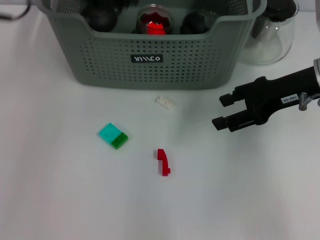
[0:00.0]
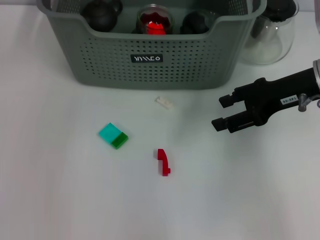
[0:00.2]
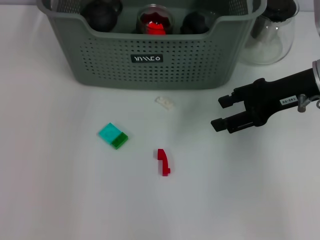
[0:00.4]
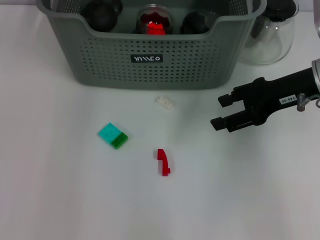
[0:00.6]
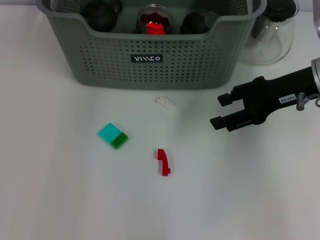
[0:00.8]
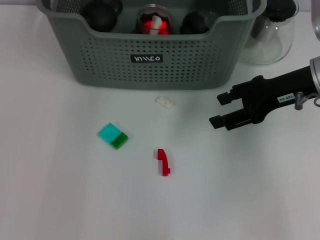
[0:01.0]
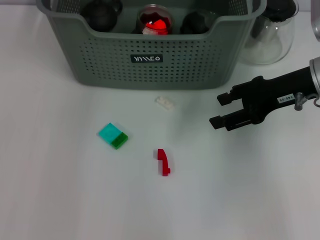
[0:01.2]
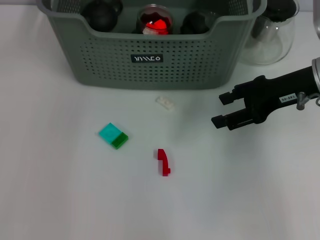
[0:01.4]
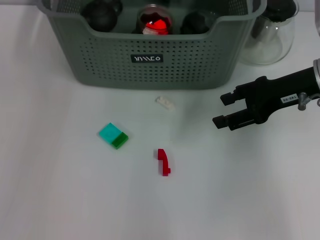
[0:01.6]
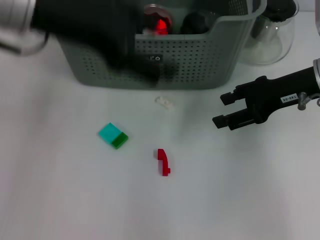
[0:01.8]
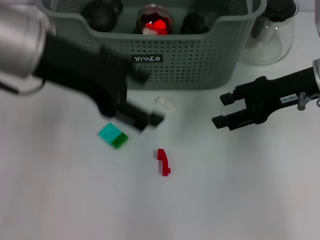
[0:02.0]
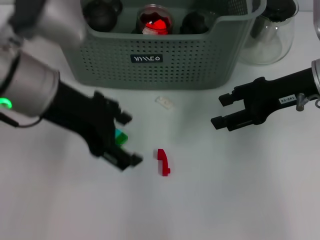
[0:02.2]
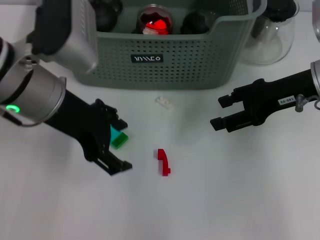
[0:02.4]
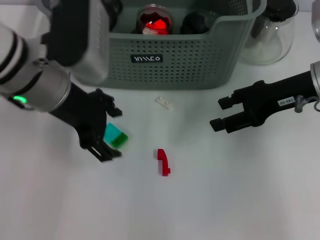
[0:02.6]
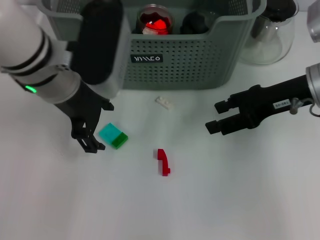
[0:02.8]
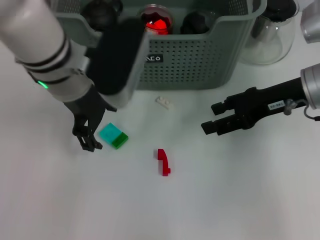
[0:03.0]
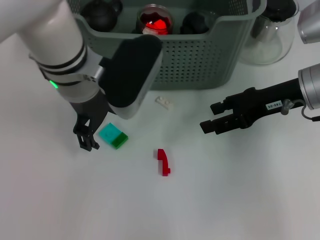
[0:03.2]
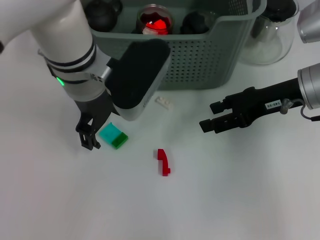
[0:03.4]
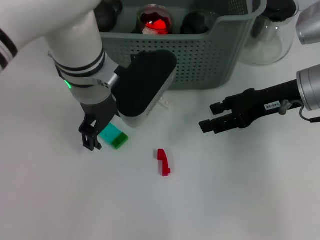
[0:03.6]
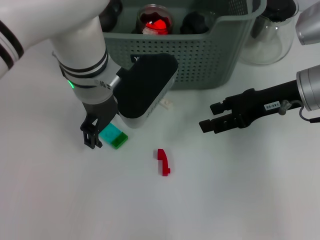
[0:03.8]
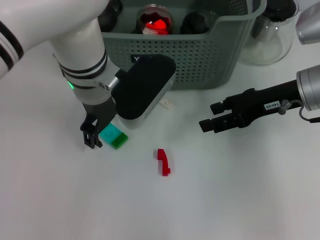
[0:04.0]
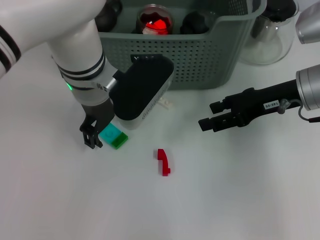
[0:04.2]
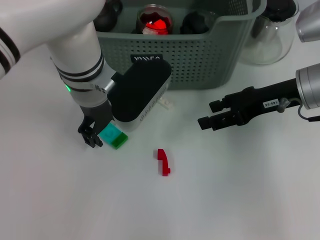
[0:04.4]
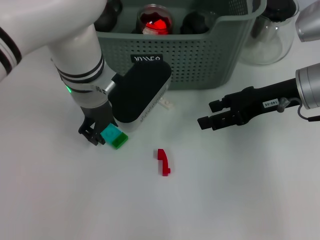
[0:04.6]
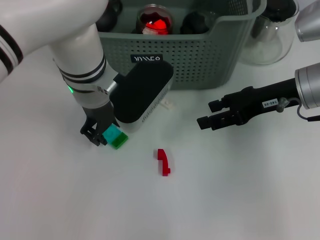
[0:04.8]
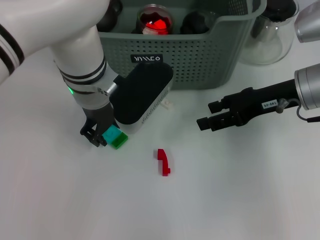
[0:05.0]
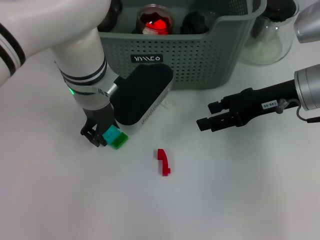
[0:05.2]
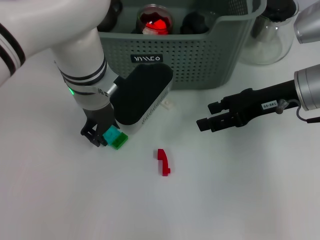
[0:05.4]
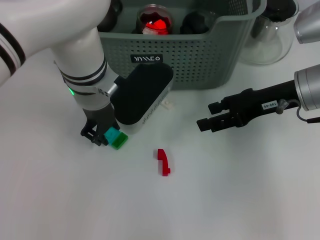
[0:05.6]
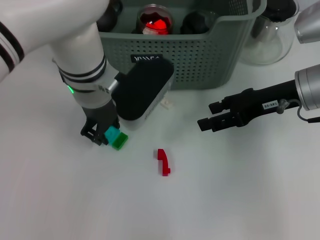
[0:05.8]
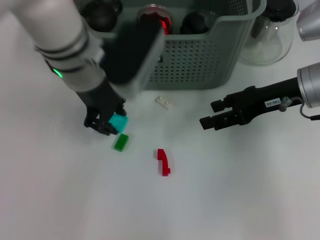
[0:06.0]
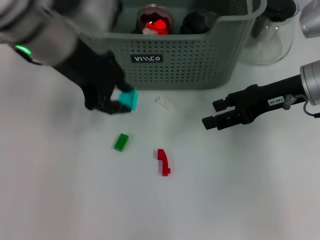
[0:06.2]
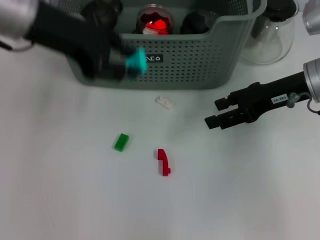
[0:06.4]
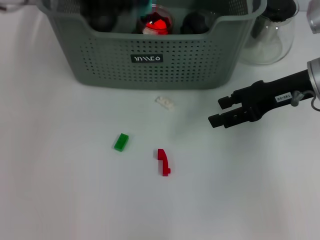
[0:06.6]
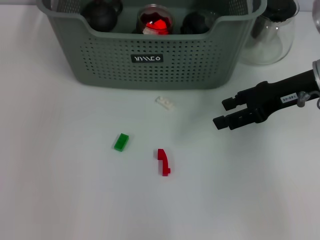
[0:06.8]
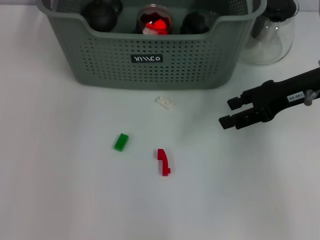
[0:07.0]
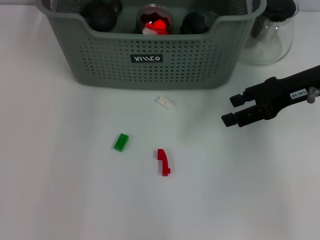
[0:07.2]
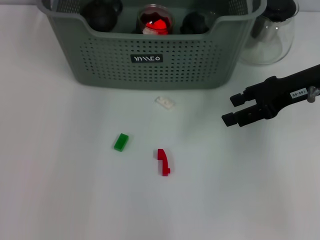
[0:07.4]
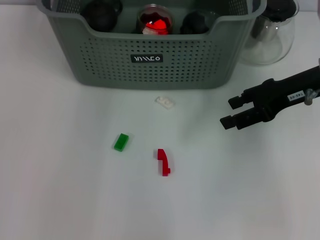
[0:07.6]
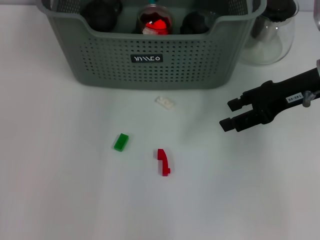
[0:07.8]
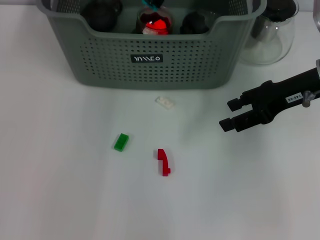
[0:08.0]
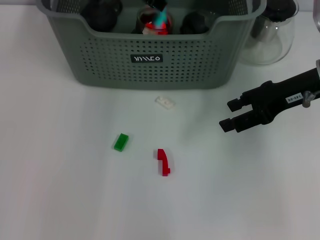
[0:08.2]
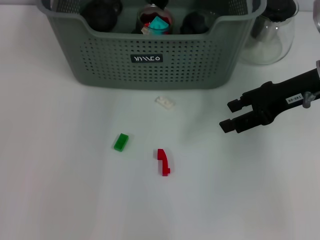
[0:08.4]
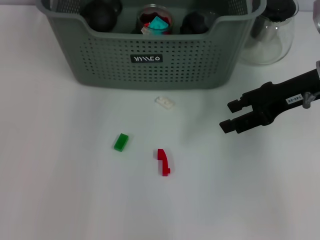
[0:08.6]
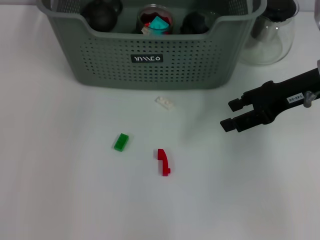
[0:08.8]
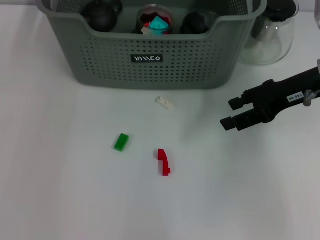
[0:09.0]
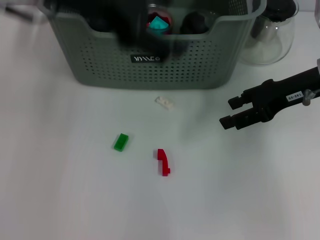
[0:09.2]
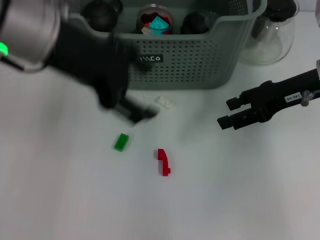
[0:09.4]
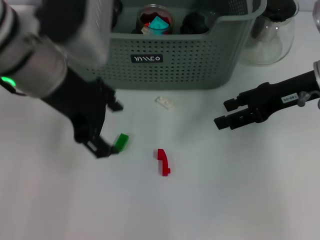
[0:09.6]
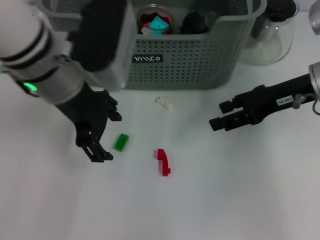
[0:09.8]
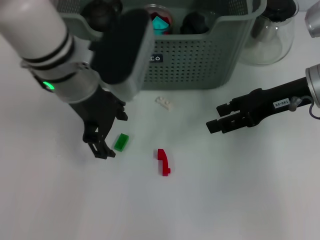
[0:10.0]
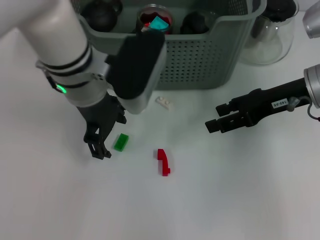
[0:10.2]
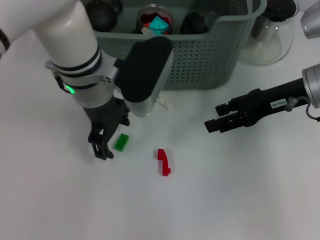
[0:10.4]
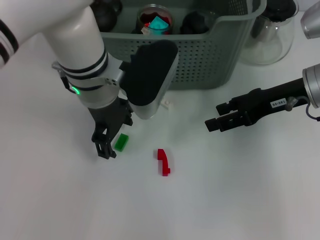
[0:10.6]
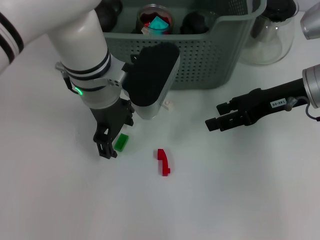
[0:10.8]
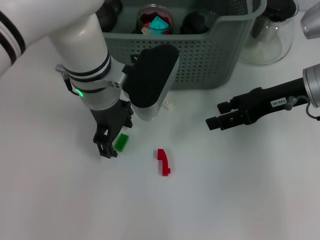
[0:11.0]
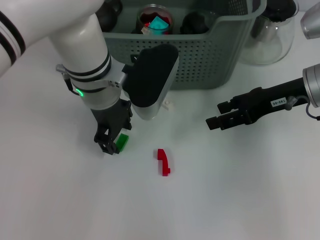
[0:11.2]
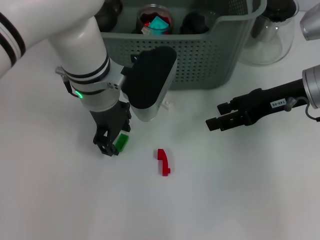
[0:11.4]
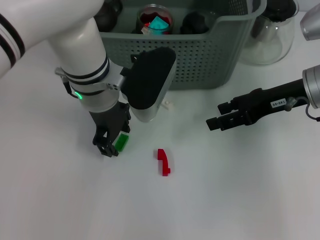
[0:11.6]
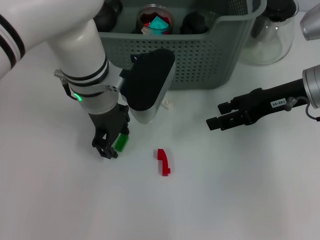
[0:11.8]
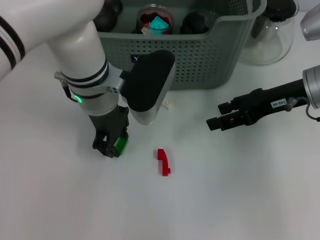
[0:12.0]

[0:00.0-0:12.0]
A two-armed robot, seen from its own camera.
Task of the whole recording: pick up the teacup on the table and place it into the storage bin, pick up the block on the table and place it into the storage bin.
Step, 1.0 to 5.4 s: Grasp the light blue block with left gripper.
Step, 5.6 to 8.2 s: Place the light blue block in the storage box with left gripper.
Step, 8.4 to 12.0 s: Grasp the green block with left gripper.
0.0 to 1.6 s: The left gripper goes forward and returns, approximately 10 cm each way, and opens its fingers.
1.6 to 3.0 s: The left gripper goes some 10 cm downward.
3.0 to 4.4 s: The left gripper changes place by roughly 5 cm.
4.4 to 6.0 s: The left gripper is displaced upward by approximately 5 cm, and closes its fingers.
6.0 to 7.6 s: The left gripper travels forward by roughly 10 cm.
9.0 to 10.4 s: The left gripper shifts approximately 15 cm downward.
10.4 to 12.0 s: There are only small adjustments of the grippers.

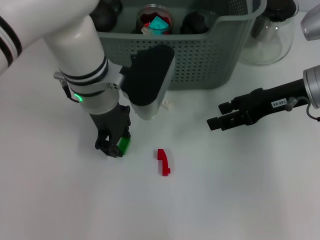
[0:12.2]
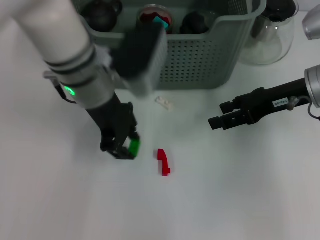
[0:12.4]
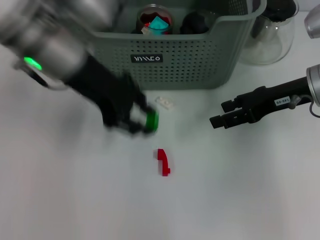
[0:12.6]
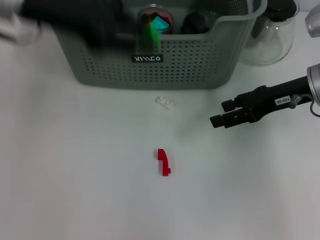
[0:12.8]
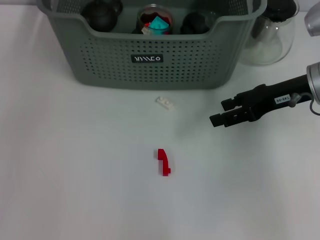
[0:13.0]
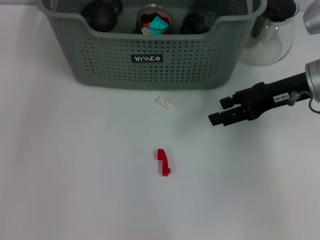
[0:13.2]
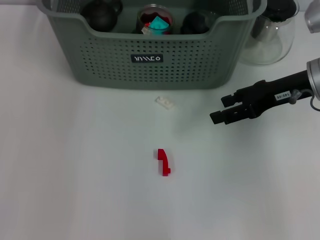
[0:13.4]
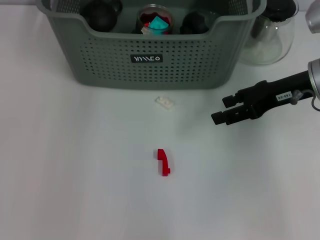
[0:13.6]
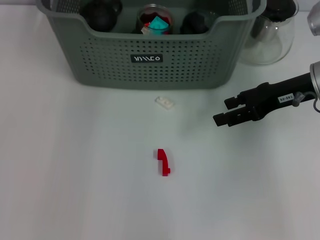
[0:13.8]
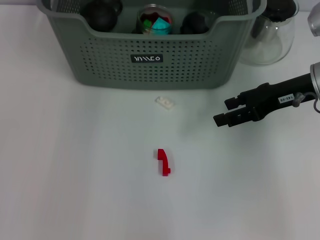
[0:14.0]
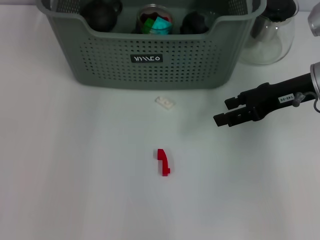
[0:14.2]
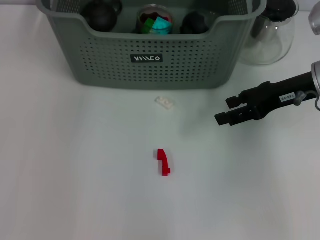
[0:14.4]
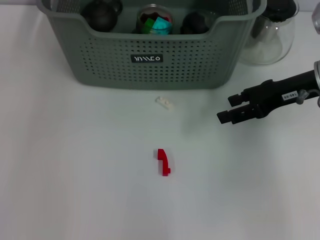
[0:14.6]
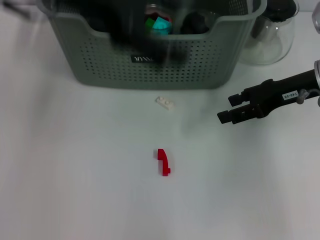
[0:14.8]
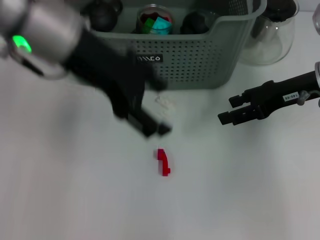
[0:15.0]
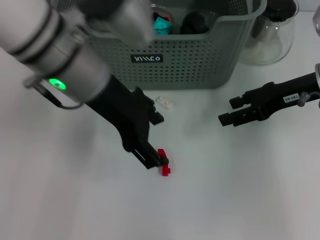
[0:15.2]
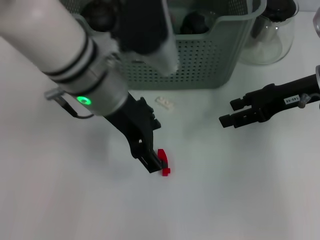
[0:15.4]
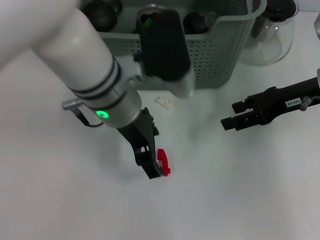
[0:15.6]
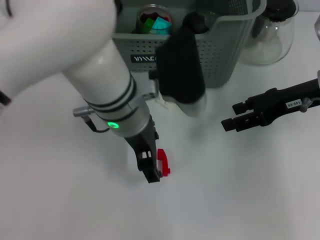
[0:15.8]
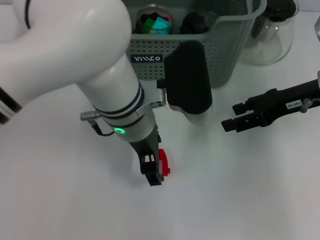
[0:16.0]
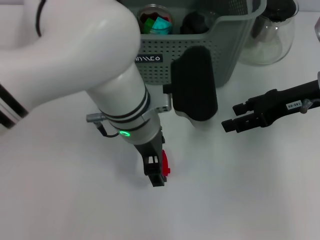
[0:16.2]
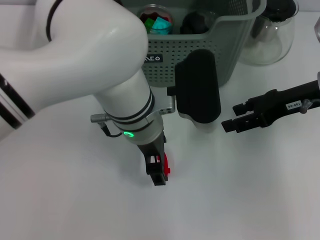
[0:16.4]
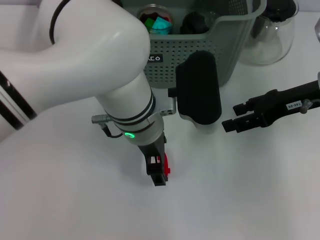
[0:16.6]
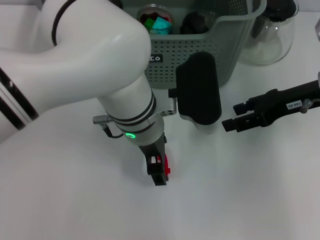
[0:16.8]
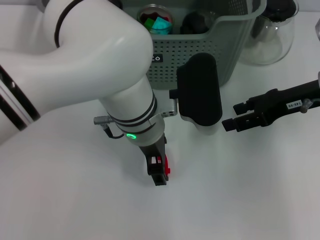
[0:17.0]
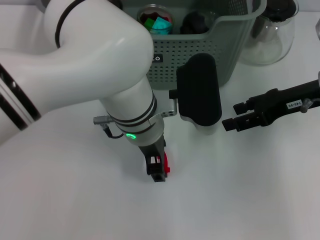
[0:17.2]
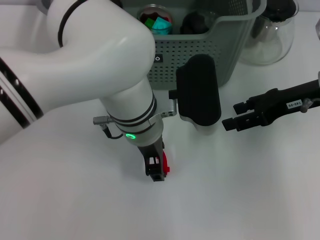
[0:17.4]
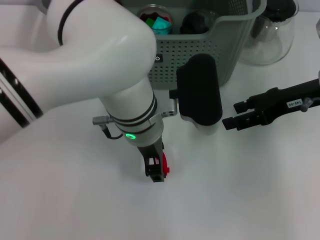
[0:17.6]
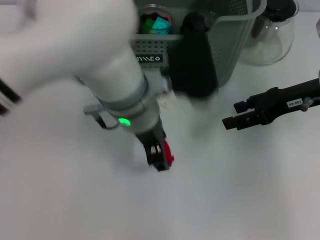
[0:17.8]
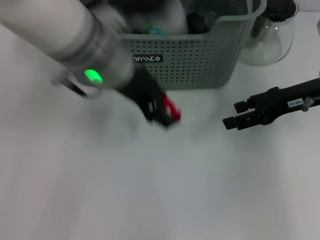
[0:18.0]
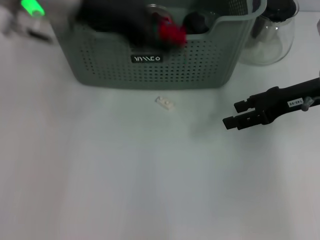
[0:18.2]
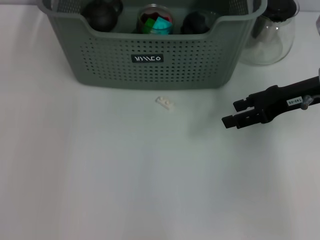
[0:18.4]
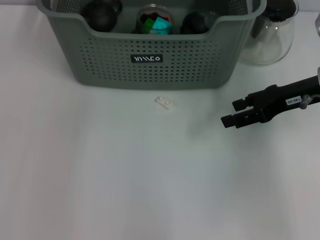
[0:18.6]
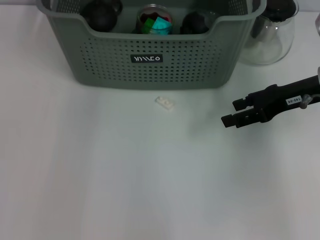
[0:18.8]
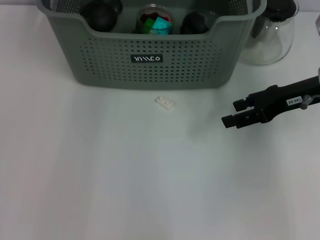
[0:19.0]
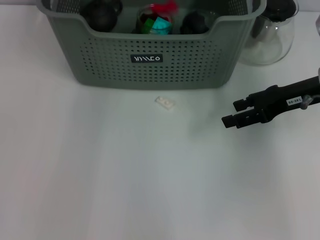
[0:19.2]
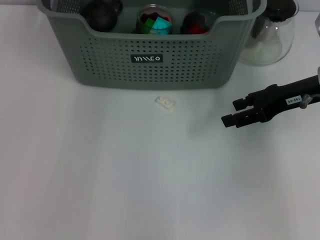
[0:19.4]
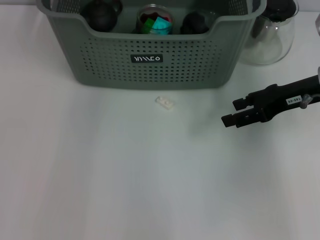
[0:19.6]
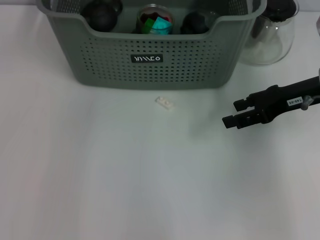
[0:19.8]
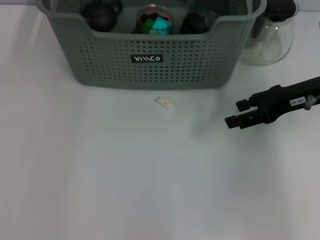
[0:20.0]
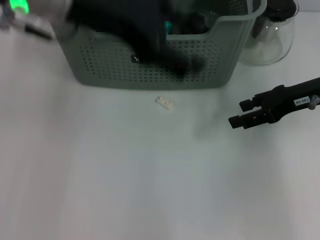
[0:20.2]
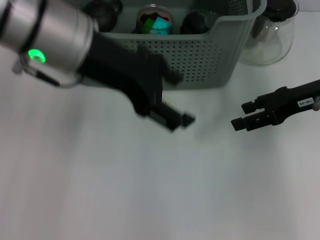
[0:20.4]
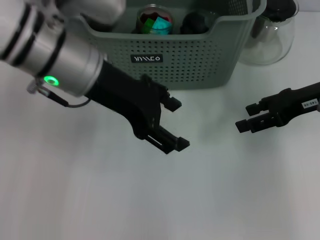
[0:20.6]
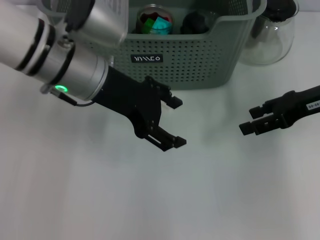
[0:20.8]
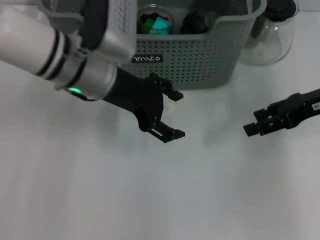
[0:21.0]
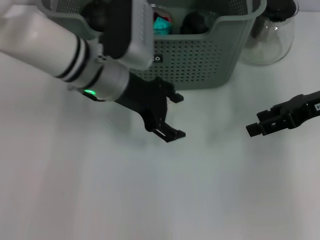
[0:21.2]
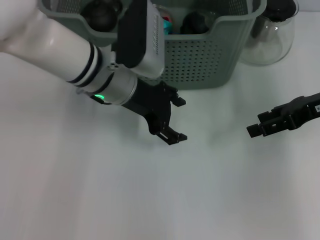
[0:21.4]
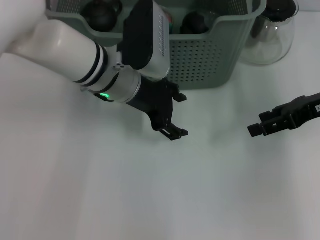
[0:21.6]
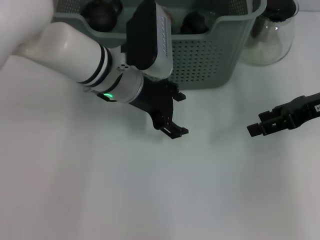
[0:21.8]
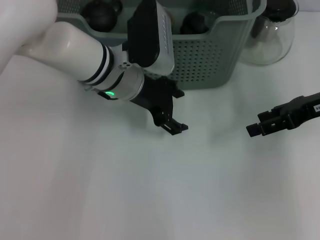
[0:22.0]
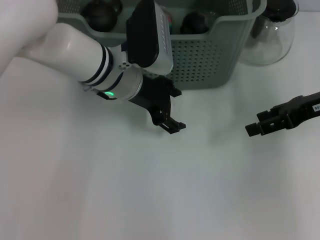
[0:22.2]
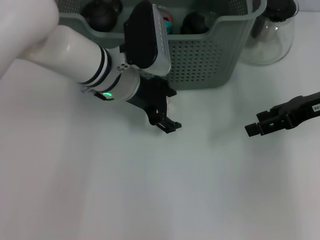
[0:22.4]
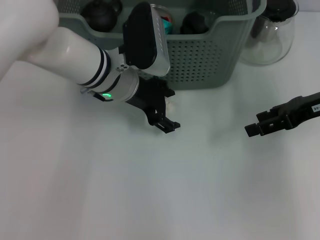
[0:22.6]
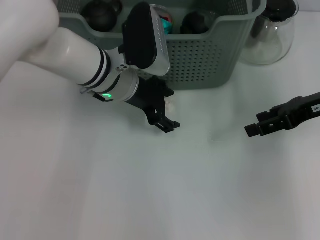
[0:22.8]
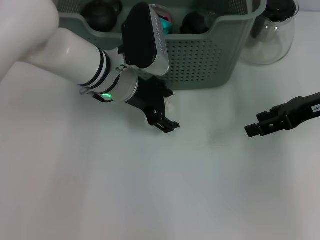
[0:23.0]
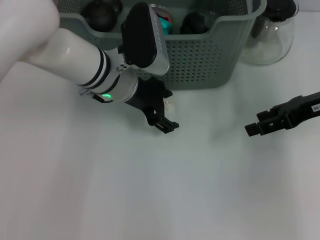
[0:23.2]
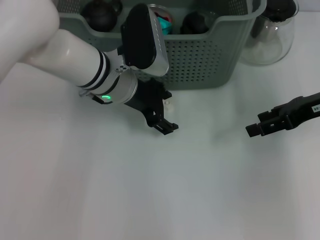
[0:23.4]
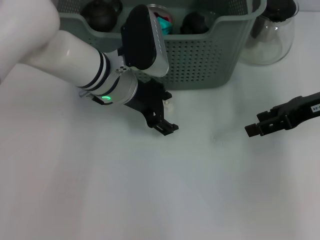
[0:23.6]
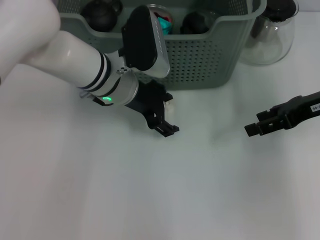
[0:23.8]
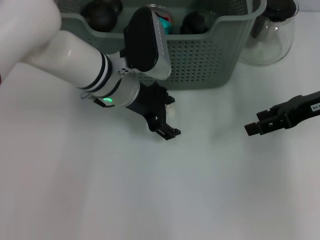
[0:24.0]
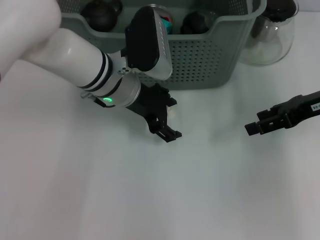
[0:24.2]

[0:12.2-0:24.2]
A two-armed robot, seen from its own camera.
Task of the whole recording: pick up the teacup on the table and place it into the storage bin, pick up the block on the table and place it into the storage bin.
Step, 12.2 to 13.8 s: Place the green block in the storage box with left gripper.
Step, 14.2 to 17.2 s: Grasp the red block with left gripper.
Step, 17.6 to 19.2 s: Place the red block in the storage box with left gripper.
12.2 to 13.8 s: The left gripper travels forward and upward by some 15 cm.
13.8 to 15.2 s: The left gripper shifts approximately 15 cm backward, and opens.
15.2 to 16.6 s: The left gripper heads downward and to the right, covering approximately 10 cm.
16.6 to 18.2 s: The left gripper travels upward and to the left by about 20 cm.
18.2 to 19.8 s: The left gripper goes some 10 cm forward.
19.8 to 21.2 s: The left gripper heads downward, covering some 15 cm.
21.2 to 22.6 s: The grippers make only small movements.
22.6 to 24.2 s: The two grippers keep their place.
